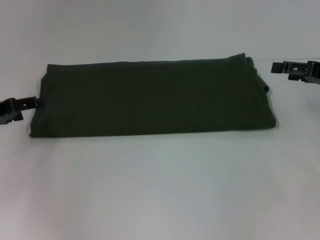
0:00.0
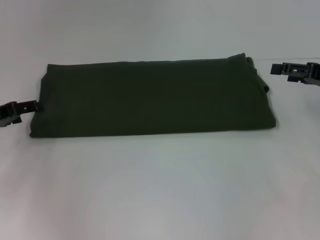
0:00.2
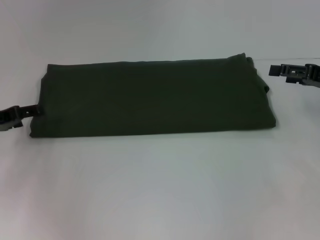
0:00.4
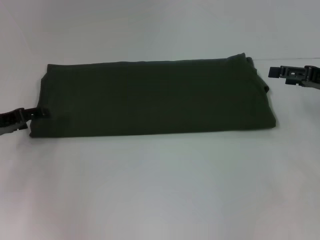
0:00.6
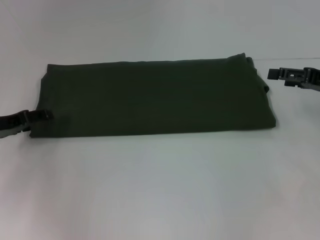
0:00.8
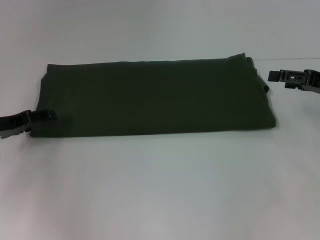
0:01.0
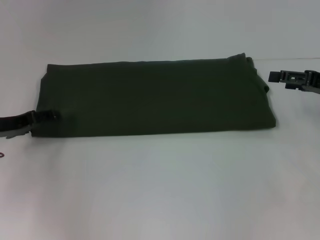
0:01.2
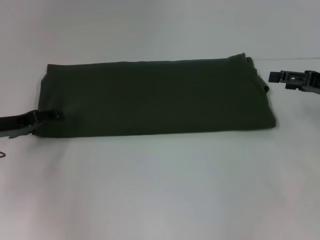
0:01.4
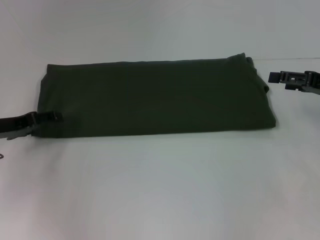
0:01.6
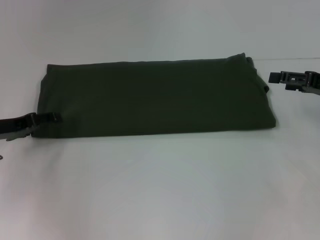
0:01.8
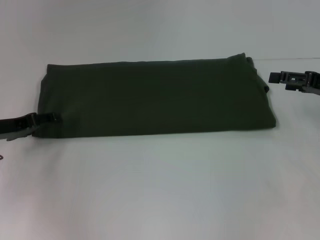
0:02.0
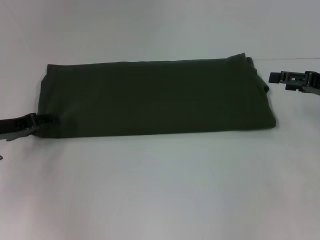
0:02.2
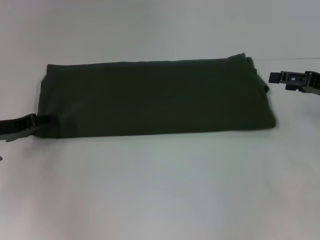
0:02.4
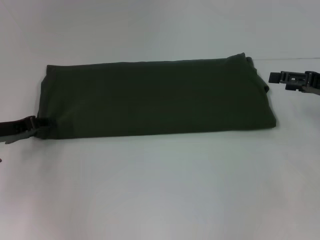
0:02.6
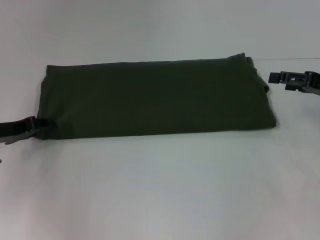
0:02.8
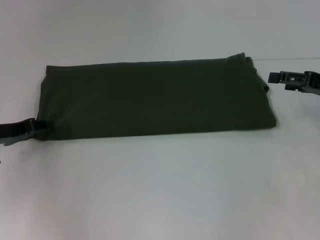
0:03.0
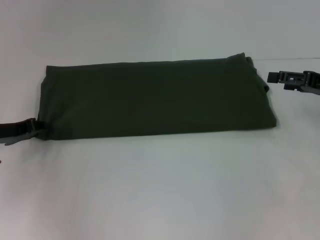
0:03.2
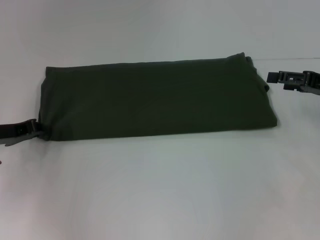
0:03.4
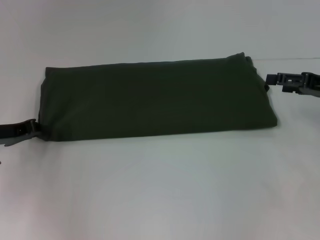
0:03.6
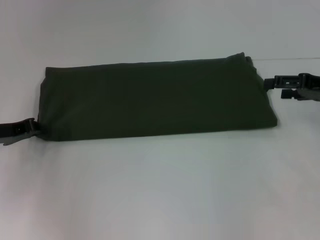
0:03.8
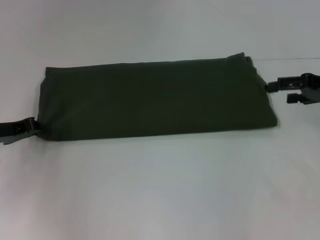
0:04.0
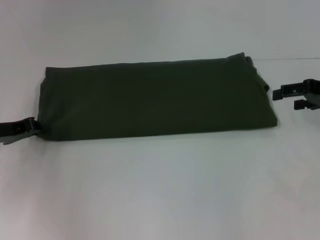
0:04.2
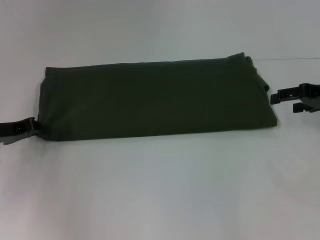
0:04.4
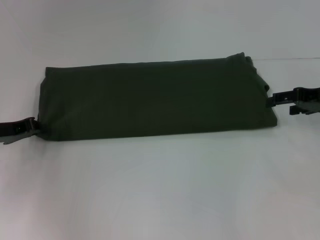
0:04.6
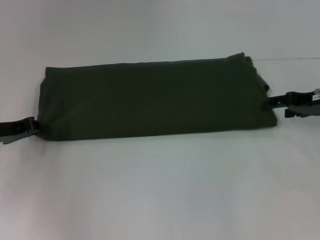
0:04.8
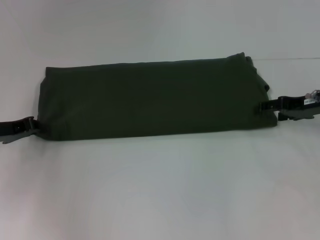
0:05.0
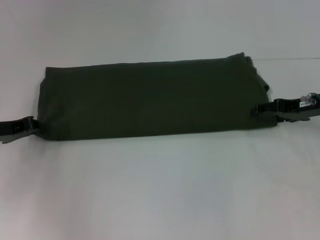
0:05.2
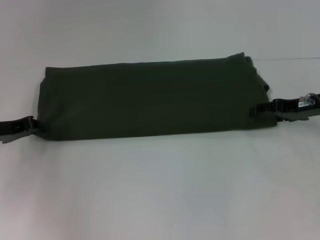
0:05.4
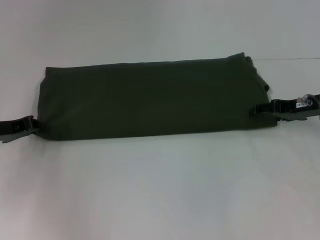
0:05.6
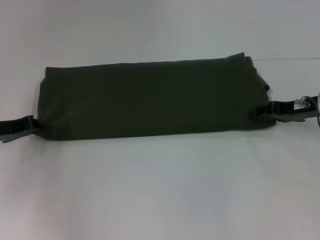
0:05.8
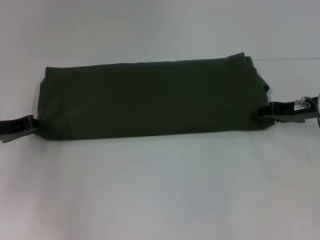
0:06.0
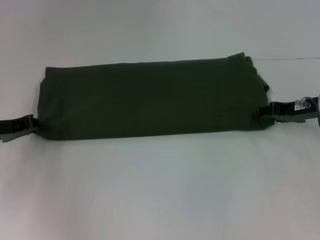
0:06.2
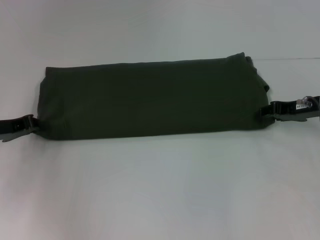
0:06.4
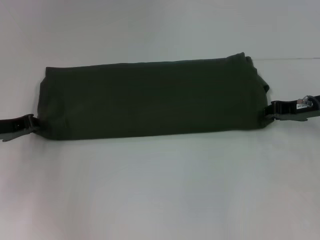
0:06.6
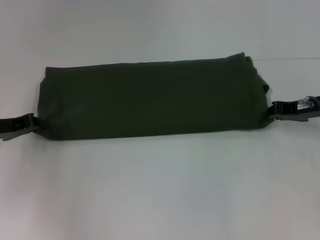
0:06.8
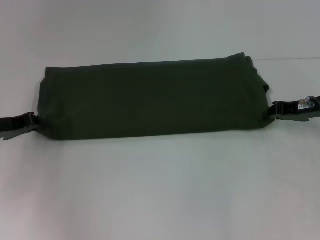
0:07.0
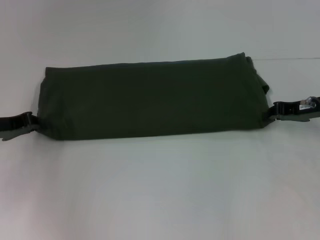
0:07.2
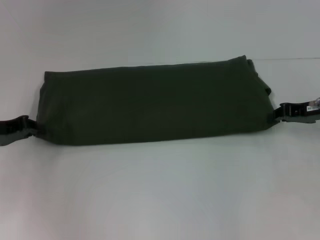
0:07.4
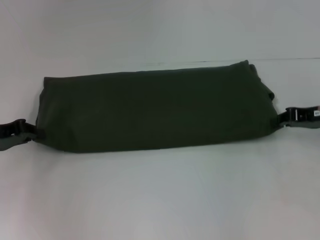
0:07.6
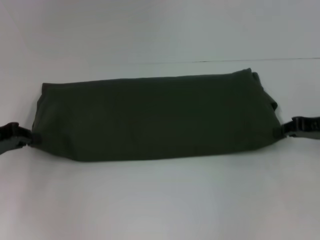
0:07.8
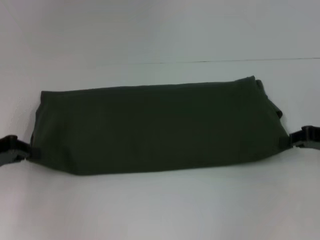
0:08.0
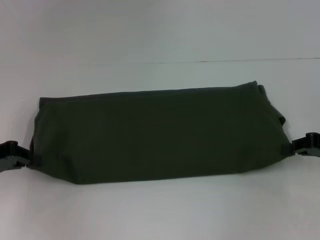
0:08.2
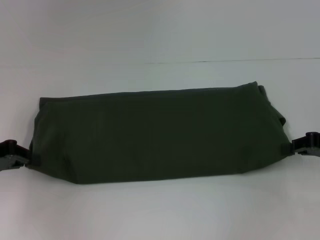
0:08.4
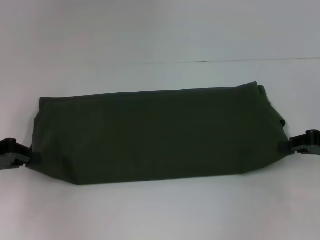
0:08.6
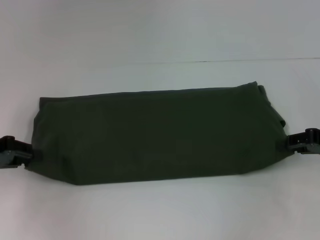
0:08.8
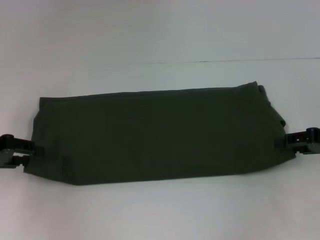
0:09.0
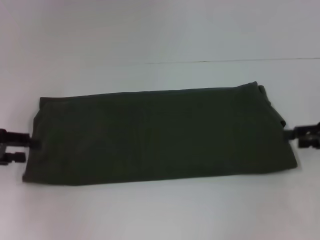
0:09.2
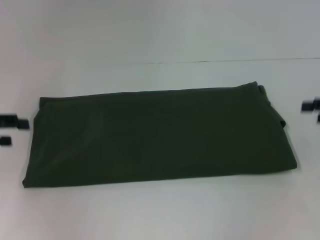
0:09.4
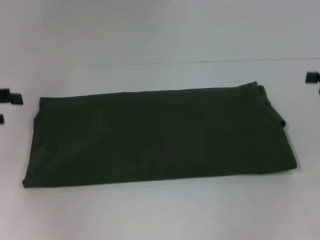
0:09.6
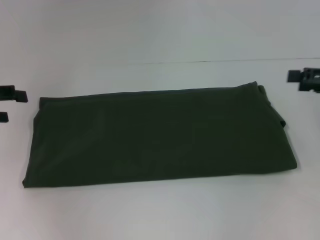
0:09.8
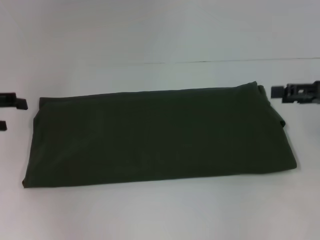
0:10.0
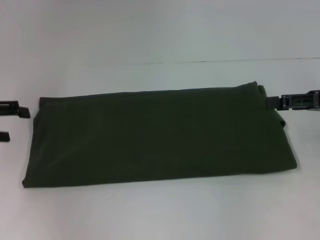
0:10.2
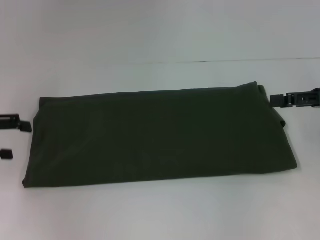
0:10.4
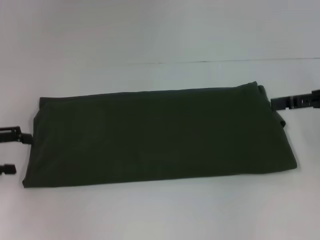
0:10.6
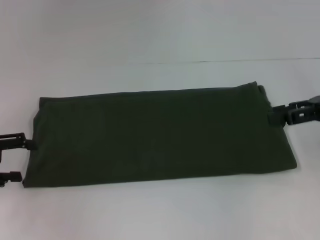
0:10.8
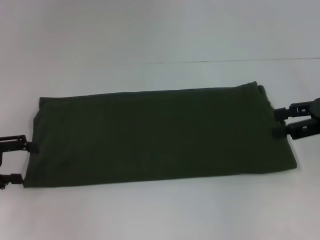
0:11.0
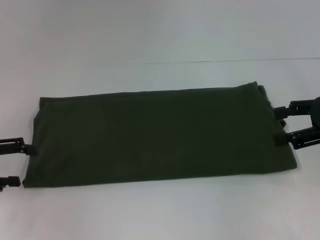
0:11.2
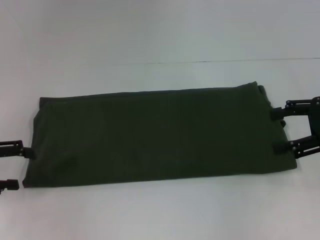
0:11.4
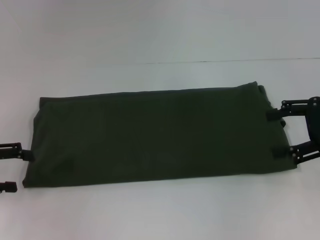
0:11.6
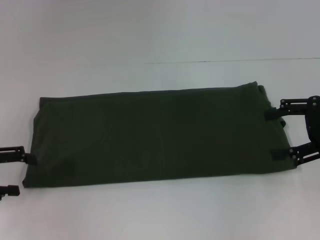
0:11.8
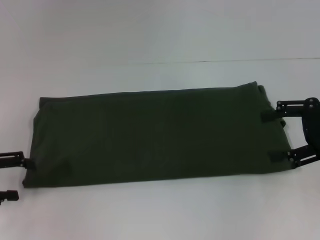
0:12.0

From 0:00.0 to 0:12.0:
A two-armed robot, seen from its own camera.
From 0:00.0 to 0:01.6: The grippers move only a little.
From 0:01.6 to 0:03.0: The left gripper closes up.
From 0:03.0 to 0:04.4: The left gripper closes.
From 0:04.4 to 0:06.0: The right gripper ends up roughly 5 cm from where it was.
From 0:06.0 to 0:07.6: The right gripper closes up.
From 0:07.6 to 0:09.0: The right gripper shifts by roughly 5 cm.
From 0:09.0 to 0:10.4: The right gripper moves upward, about 5 cm, and opens its fingers; the left gripper opens up.
From 0:10.4 to 0:12.0: The left gripper moves approximately 5 cm.

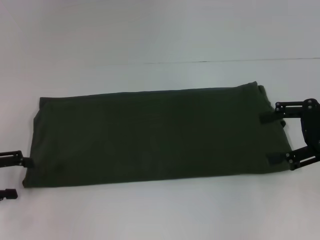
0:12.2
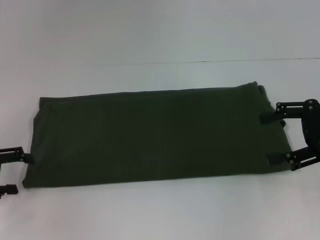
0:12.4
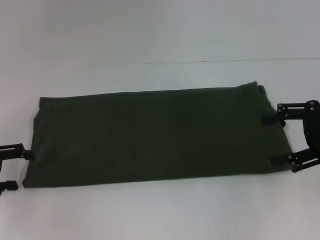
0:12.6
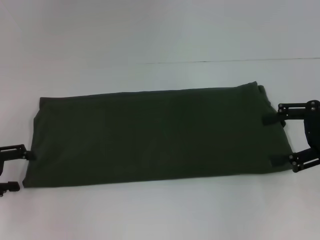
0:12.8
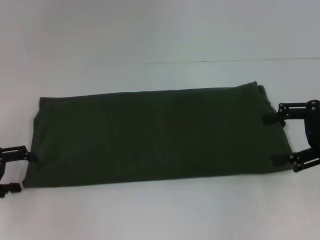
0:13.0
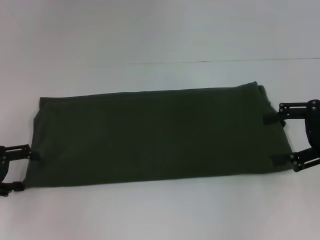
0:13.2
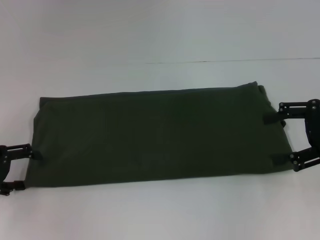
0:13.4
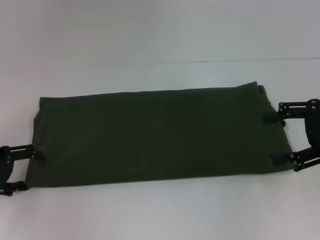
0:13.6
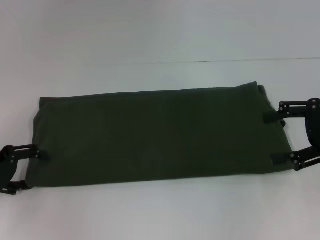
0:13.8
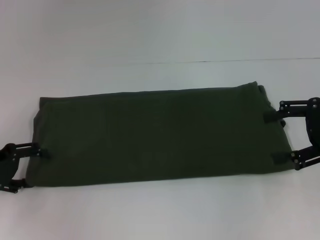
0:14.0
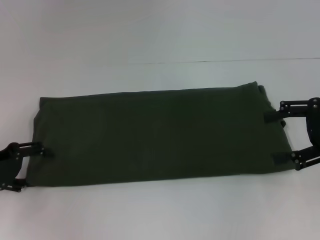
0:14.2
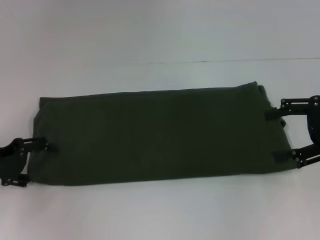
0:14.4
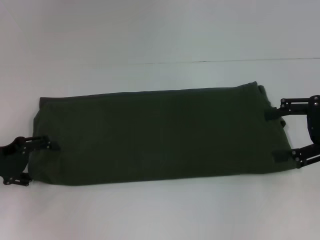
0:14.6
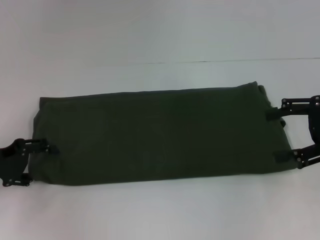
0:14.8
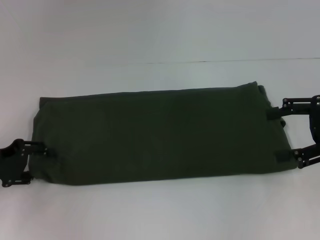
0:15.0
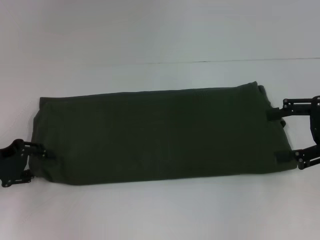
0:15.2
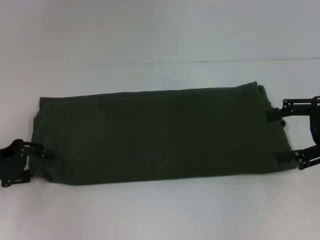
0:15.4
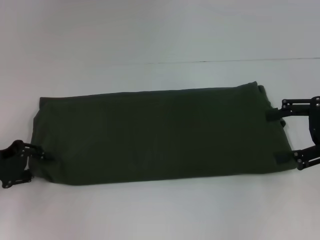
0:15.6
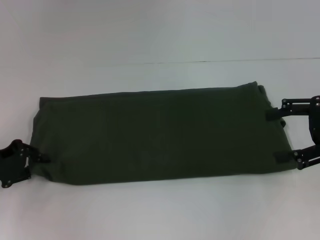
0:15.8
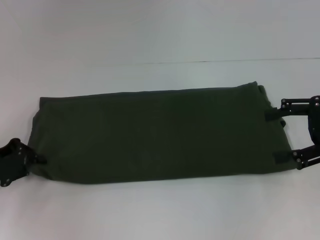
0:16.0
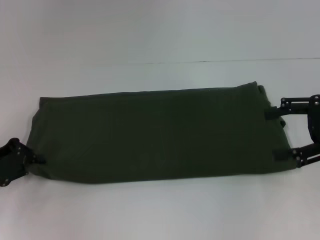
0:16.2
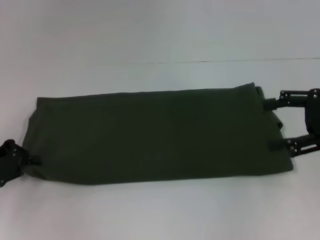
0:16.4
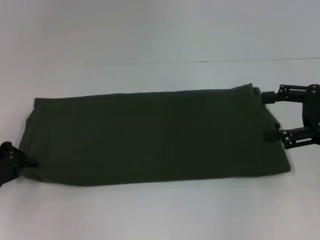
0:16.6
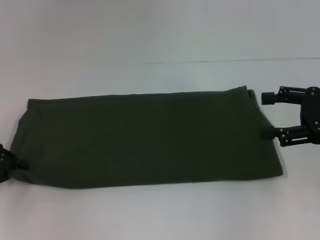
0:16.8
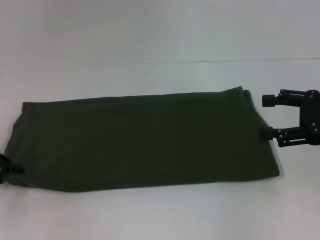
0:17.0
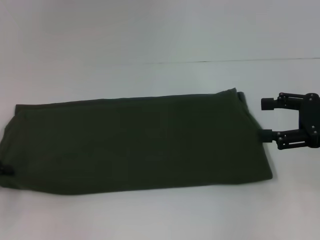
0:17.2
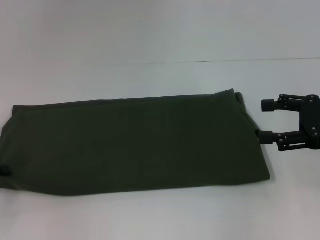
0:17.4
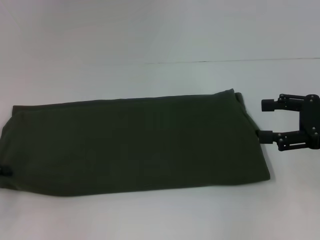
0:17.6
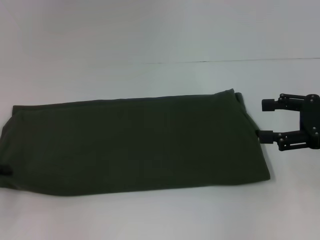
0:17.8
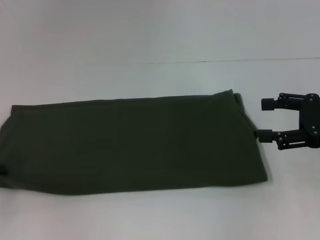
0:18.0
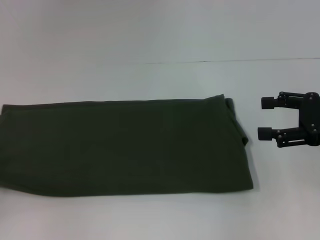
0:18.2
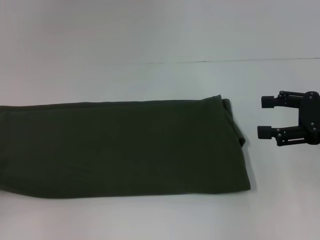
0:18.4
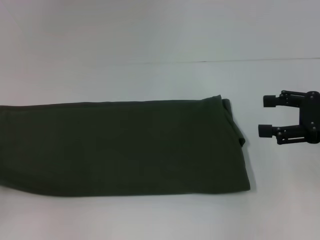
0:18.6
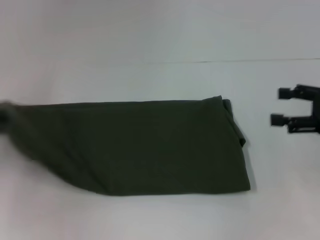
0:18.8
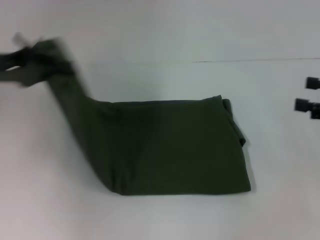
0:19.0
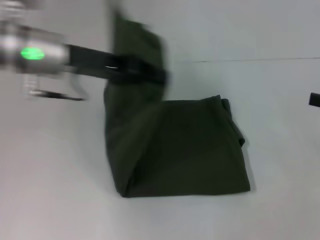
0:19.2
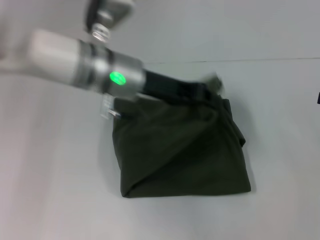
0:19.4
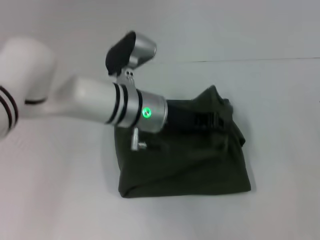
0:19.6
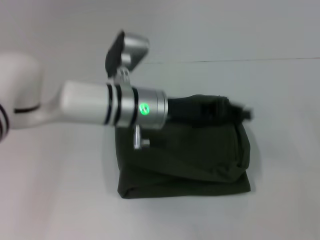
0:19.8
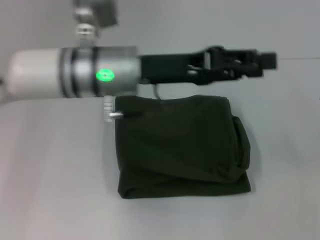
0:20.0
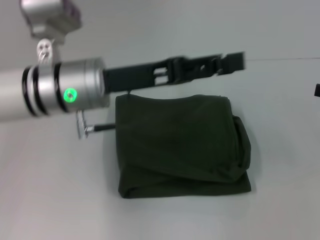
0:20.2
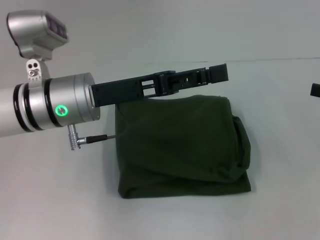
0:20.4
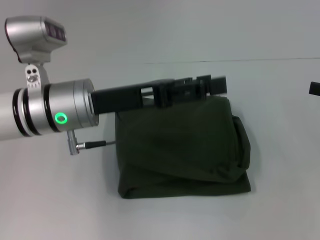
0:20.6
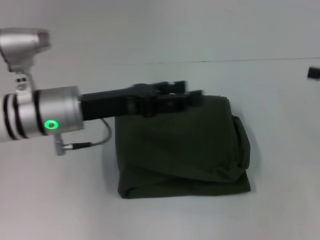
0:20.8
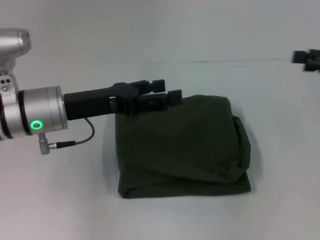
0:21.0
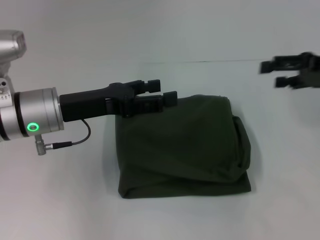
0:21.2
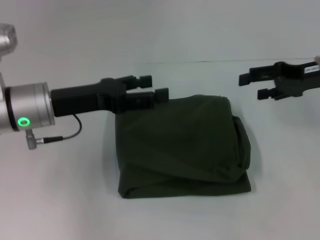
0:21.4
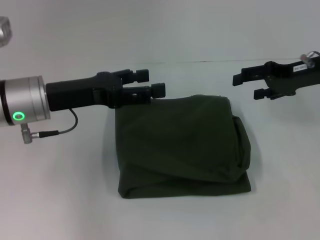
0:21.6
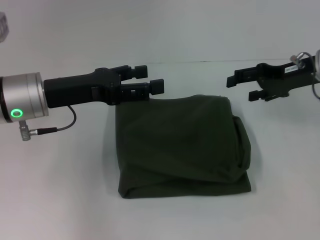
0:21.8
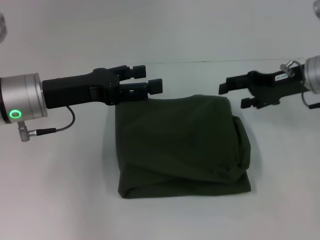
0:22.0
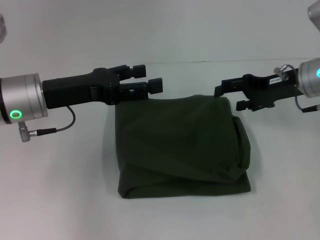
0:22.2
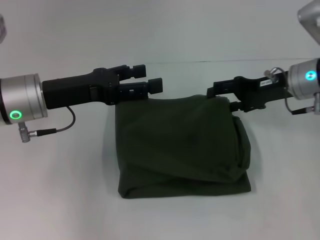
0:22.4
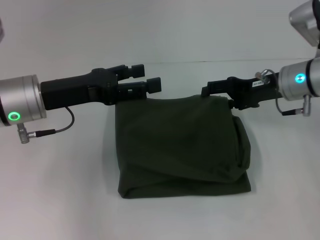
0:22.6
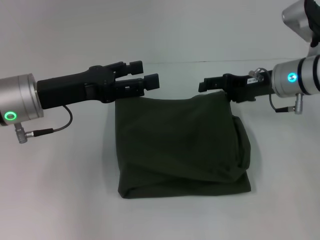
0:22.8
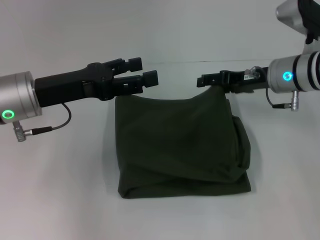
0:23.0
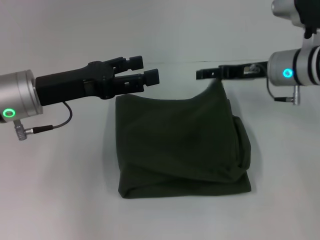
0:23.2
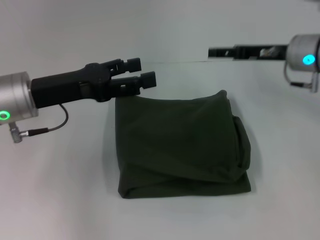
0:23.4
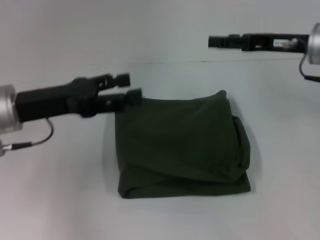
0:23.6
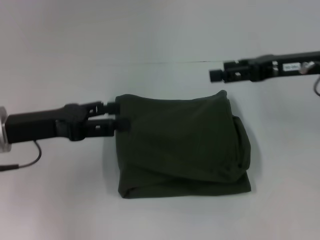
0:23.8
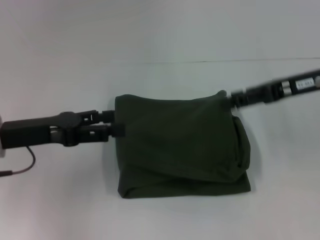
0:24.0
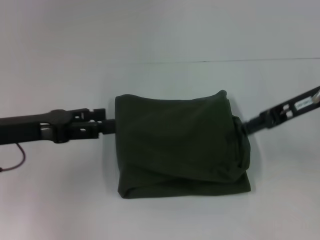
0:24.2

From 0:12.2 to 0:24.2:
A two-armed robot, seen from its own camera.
Step, from 0:12.2 to 0:19.6: Fold the clothes with your left hand.
From 0:12.2 to 0:15.2: The grippers make only small movements.
From 0:15.2 to 0:16.6: The left gripper closes.
From 0:16.6 to 0:18.2: The left gripper goes roughly 5 cm to the left.
From 0:18.2 to 0:19.8: The left gripper heads to the right, covering about 35 cm; the right gripper travels to the right by some 10 cm.
From 0:19.8 to 0:21.2: The left gripper shifts approximately 15 cm to the left, and opens its fingers. The right gripper goes roughly 10 cm forward and to the left.
From 0:21.2 to 0:22.6: The right gripper shifts about 10 cm to the left and downward.
From 0:22.6 to 0:24.2: The left gripper travels to the left by roughly 5 cm; the right gripper is displaced upward by roughly 5 cm.
